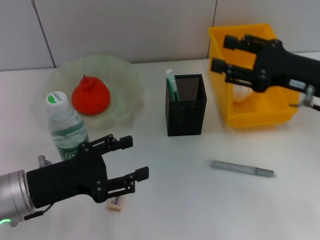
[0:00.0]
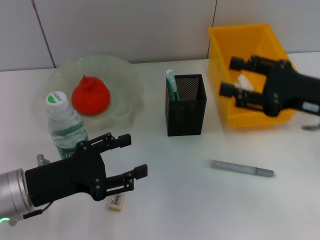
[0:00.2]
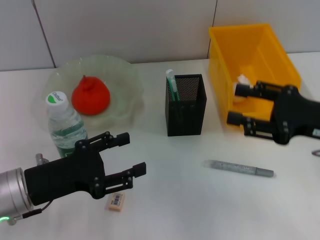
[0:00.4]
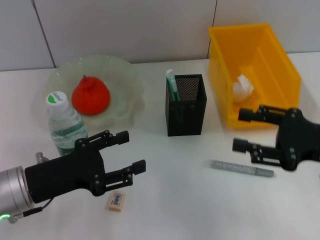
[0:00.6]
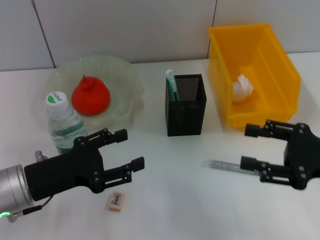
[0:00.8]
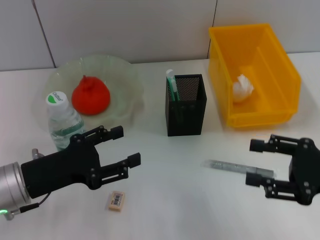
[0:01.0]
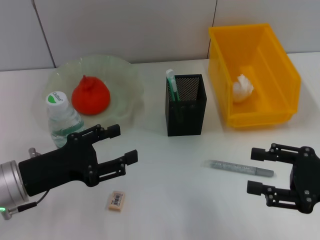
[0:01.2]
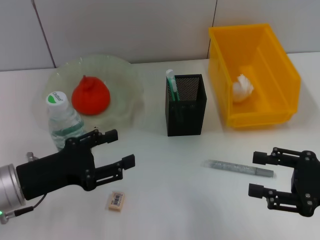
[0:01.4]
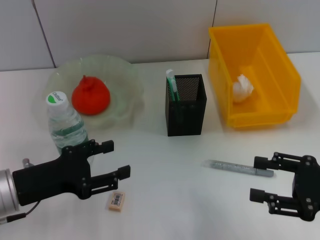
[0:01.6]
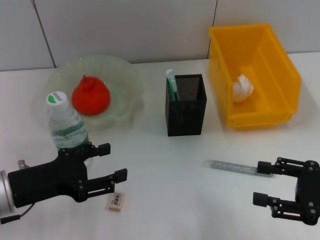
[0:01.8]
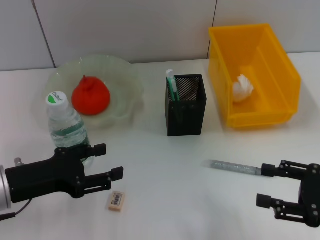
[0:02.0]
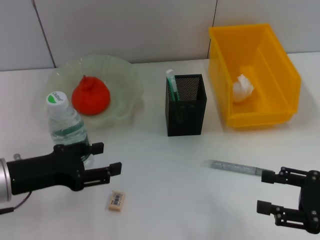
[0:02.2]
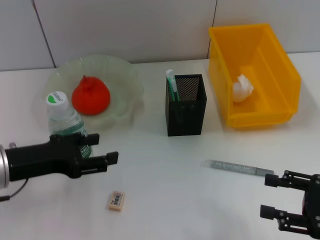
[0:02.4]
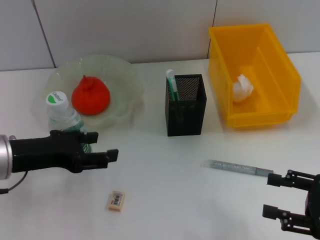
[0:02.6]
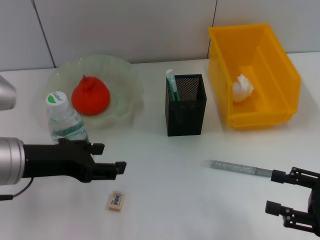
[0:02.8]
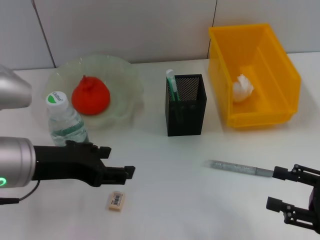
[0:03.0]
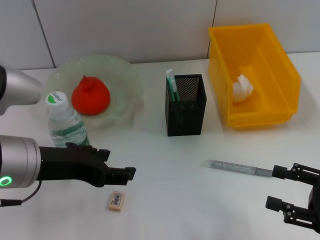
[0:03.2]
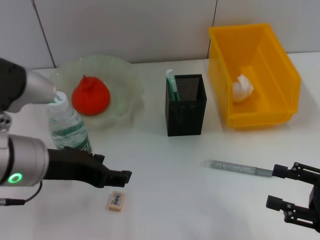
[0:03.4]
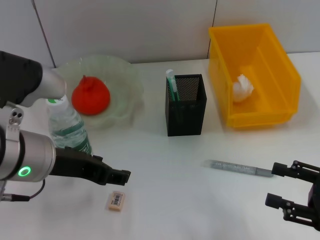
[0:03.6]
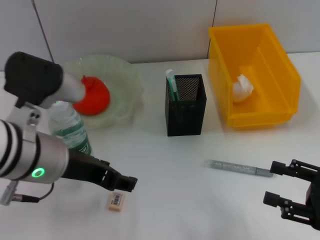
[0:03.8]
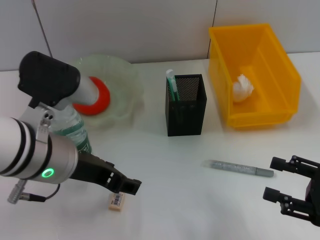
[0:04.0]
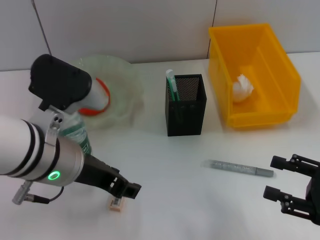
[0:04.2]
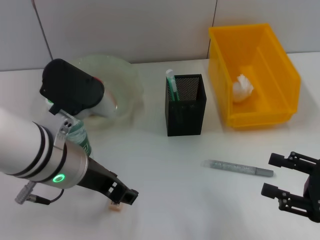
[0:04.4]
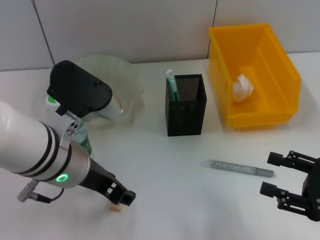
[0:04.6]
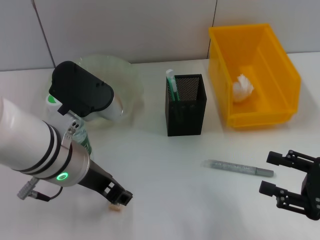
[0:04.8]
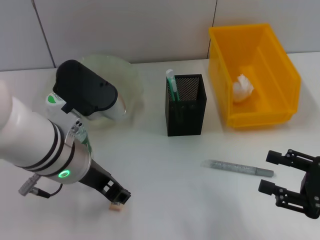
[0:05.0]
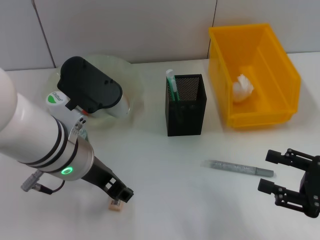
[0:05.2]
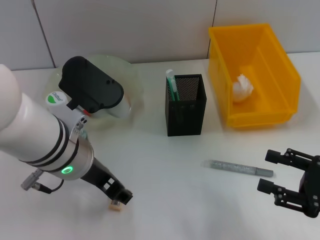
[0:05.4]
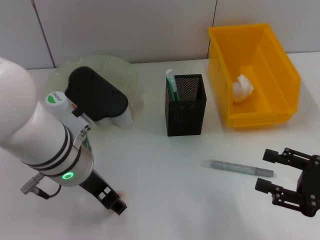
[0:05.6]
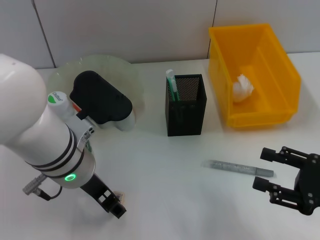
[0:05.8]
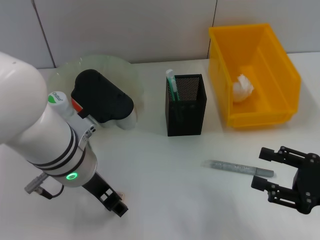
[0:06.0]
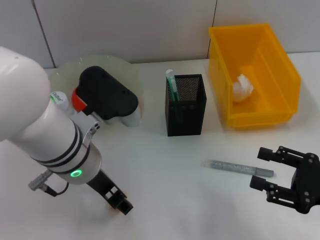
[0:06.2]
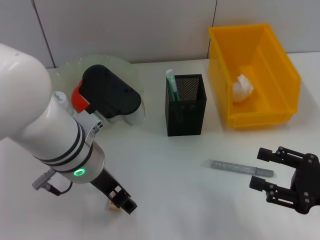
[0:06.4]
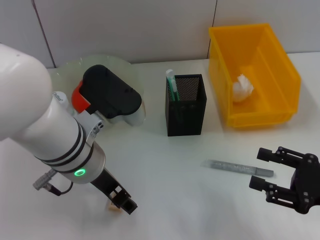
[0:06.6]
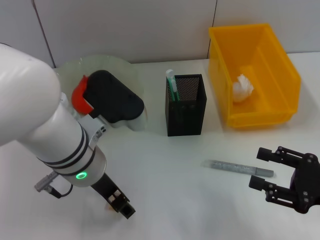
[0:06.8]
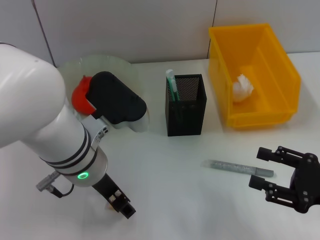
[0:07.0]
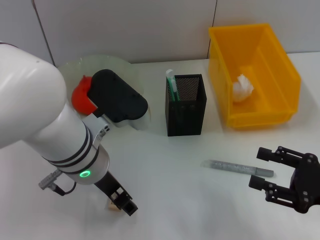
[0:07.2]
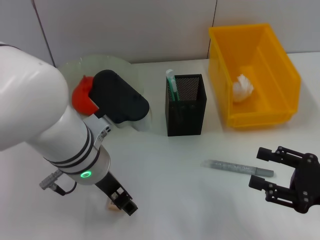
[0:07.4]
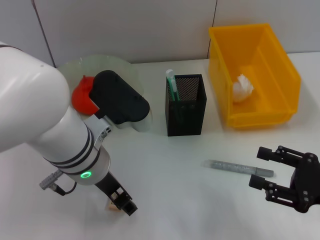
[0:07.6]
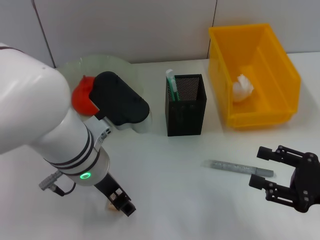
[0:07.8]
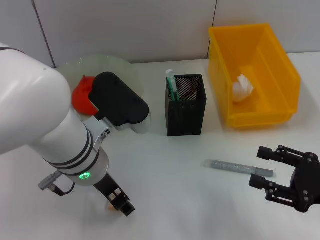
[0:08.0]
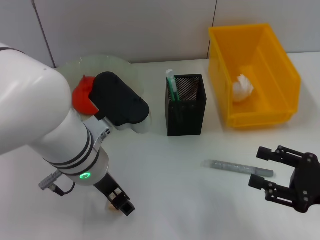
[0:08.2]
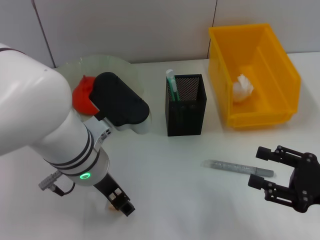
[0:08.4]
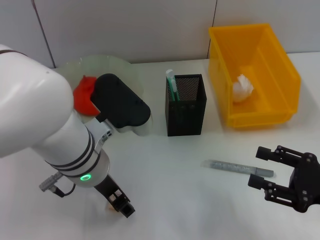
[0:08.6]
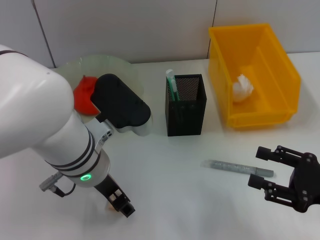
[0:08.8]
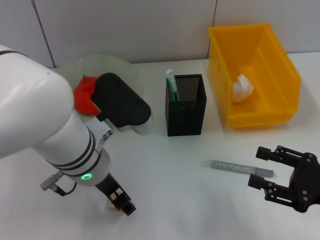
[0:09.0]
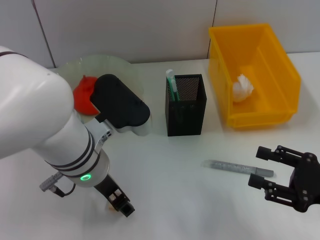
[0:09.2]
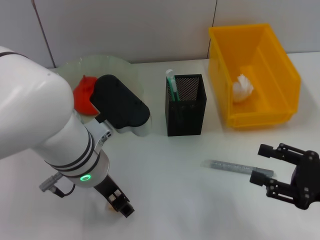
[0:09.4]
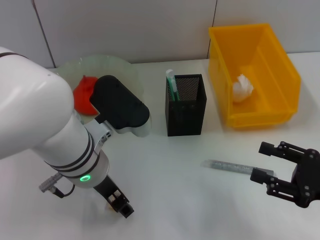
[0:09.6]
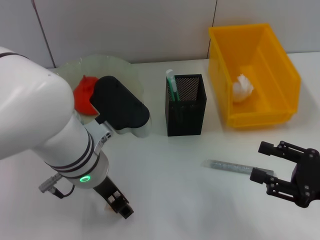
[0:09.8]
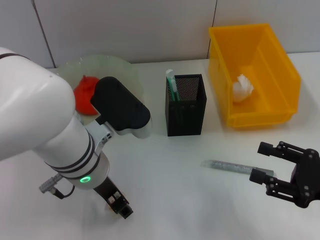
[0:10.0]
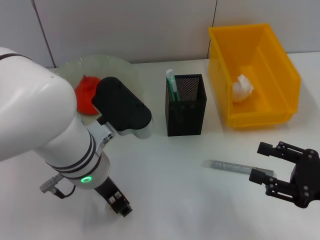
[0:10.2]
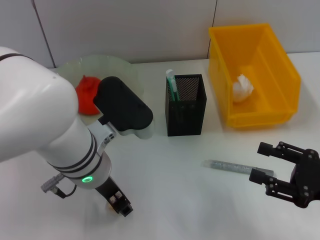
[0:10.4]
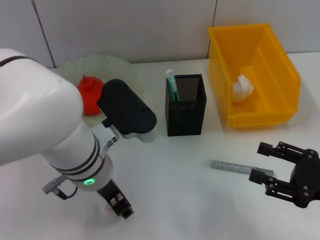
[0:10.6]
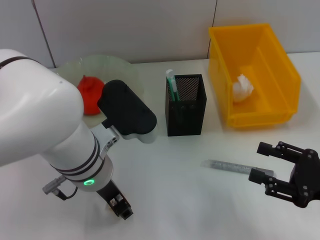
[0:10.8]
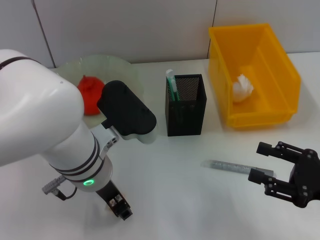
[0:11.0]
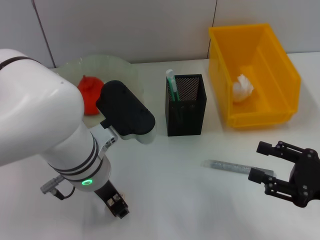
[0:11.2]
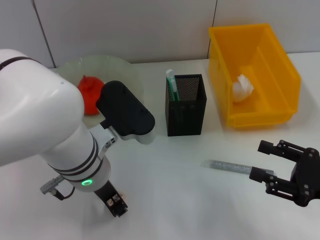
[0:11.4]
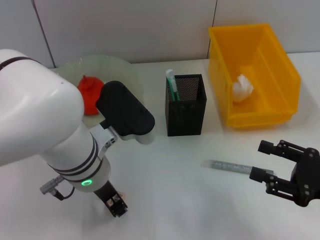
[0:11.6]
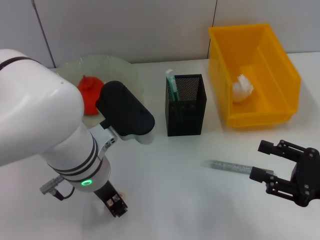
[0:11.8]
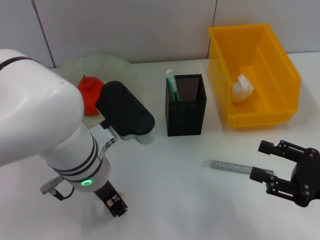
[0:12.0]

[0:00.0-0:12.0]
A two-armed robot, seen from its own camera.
0:00.0 to 0:01.6: The right gripper travels backward and downward by some 15 cm.
0:01.6 to 0:03.0: The left gripper moves upward, roughly 10 cm.
0:03.0 to 0:04.4: The left gripper travels to the right by roughly 5 cm.
0:04.4 to 0:07.6: The grippers make only small movements.
0:07.6 to 0:10.4: Both grippers stay put.
0:10.4 to 0:12.0: Neither gripper changes place.

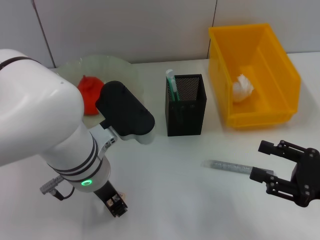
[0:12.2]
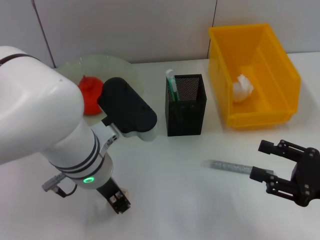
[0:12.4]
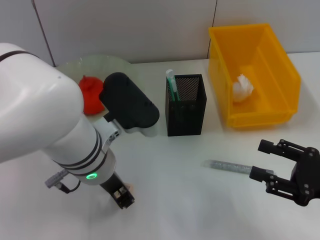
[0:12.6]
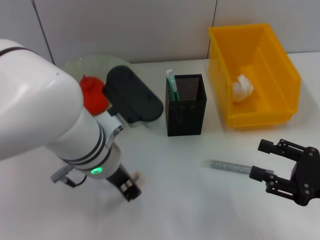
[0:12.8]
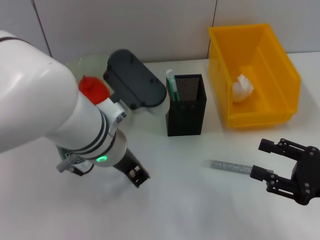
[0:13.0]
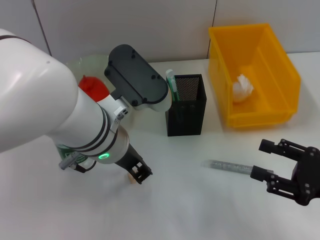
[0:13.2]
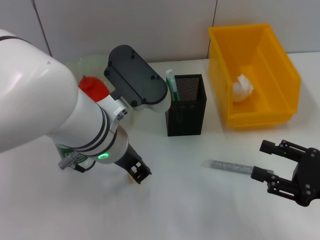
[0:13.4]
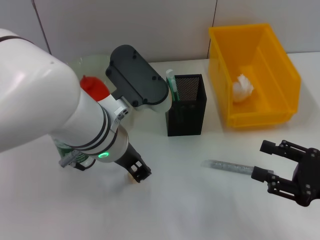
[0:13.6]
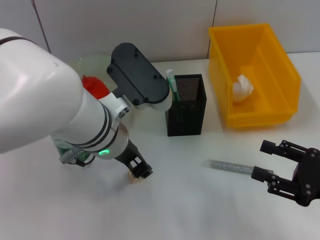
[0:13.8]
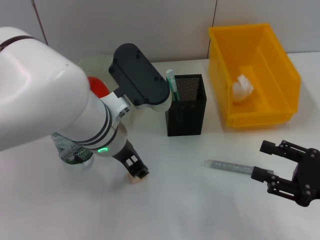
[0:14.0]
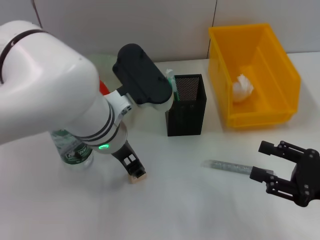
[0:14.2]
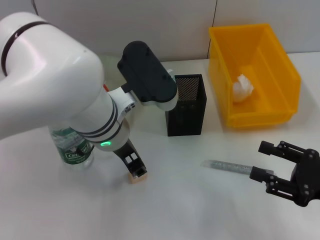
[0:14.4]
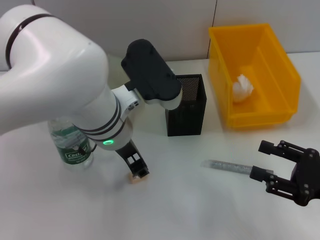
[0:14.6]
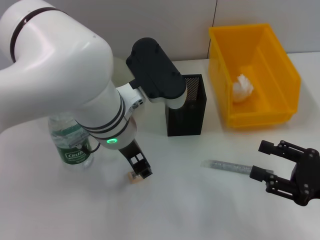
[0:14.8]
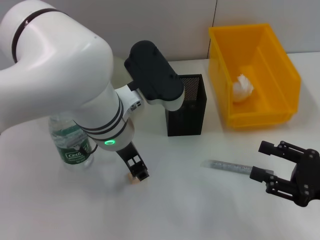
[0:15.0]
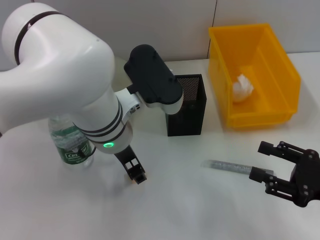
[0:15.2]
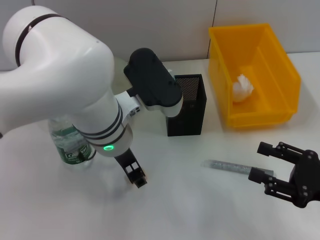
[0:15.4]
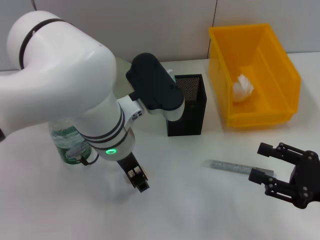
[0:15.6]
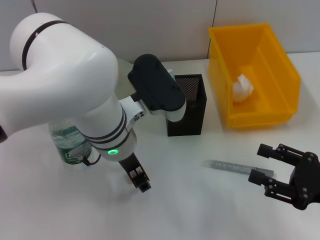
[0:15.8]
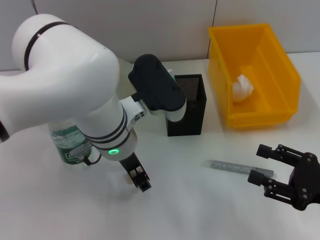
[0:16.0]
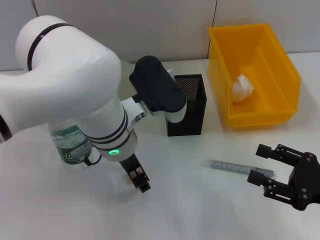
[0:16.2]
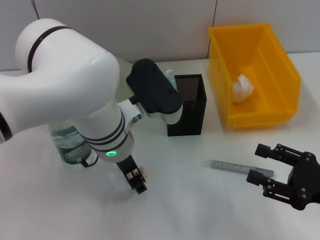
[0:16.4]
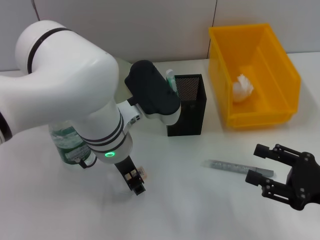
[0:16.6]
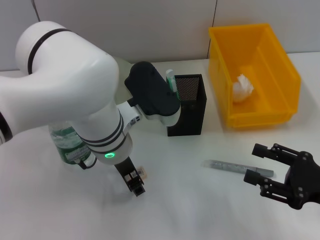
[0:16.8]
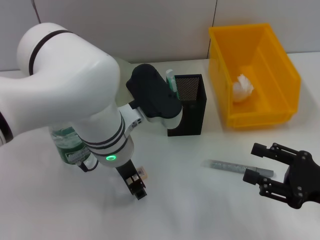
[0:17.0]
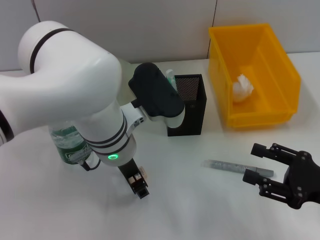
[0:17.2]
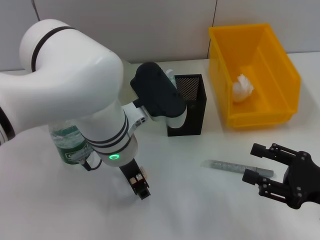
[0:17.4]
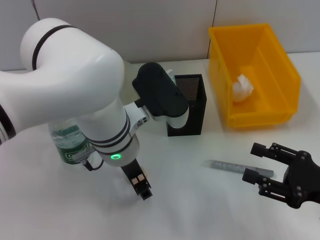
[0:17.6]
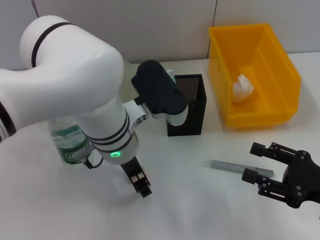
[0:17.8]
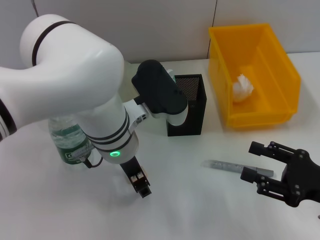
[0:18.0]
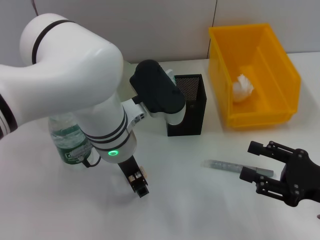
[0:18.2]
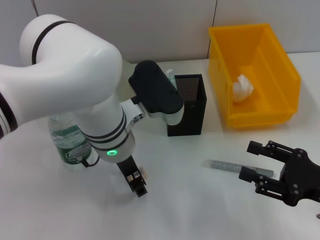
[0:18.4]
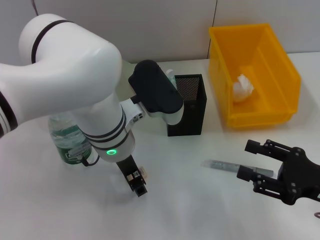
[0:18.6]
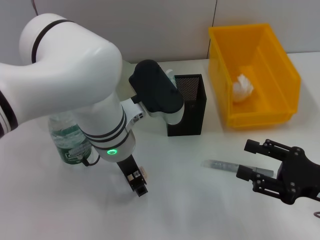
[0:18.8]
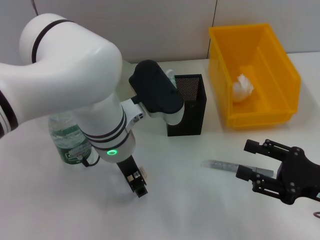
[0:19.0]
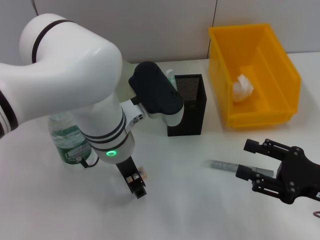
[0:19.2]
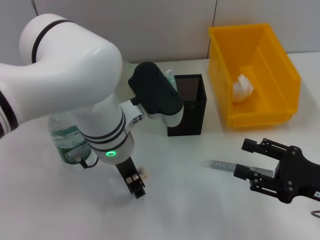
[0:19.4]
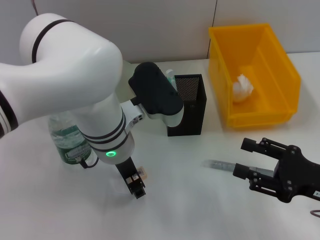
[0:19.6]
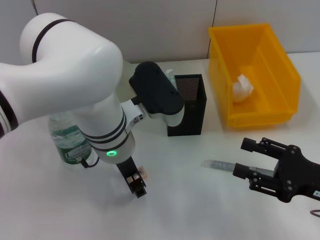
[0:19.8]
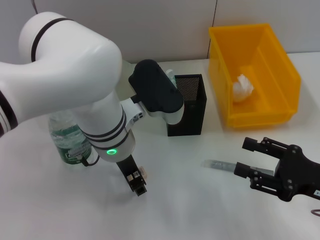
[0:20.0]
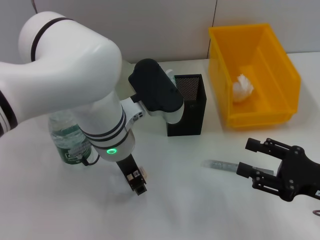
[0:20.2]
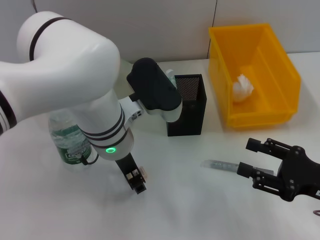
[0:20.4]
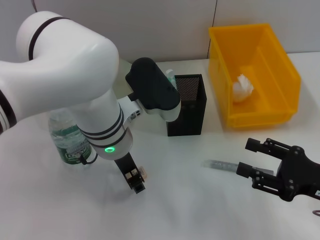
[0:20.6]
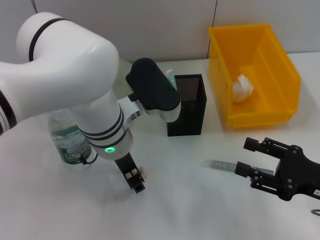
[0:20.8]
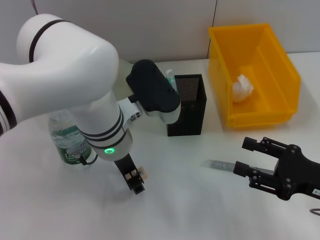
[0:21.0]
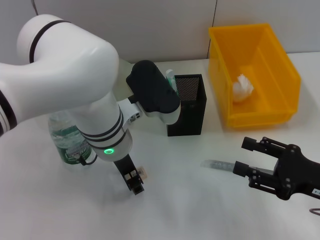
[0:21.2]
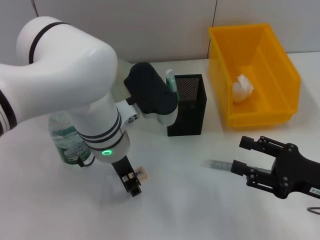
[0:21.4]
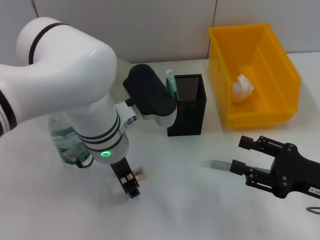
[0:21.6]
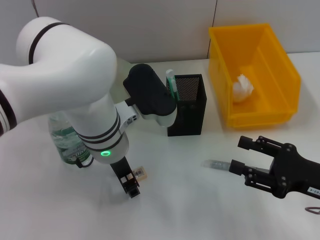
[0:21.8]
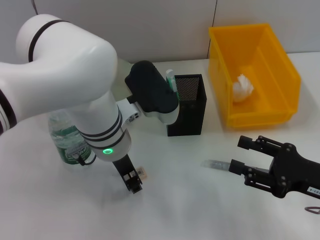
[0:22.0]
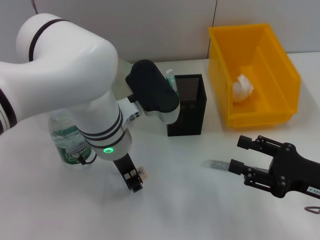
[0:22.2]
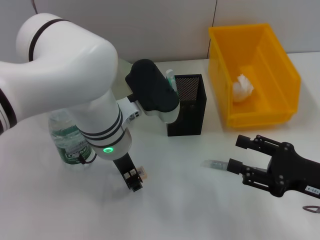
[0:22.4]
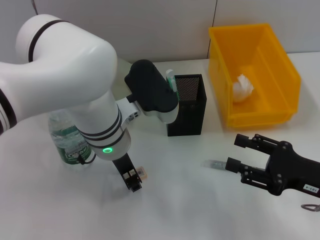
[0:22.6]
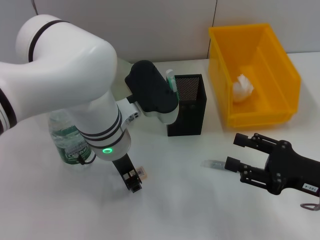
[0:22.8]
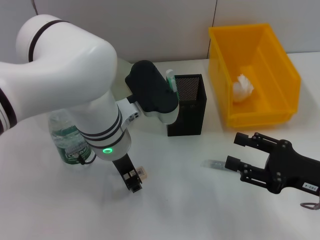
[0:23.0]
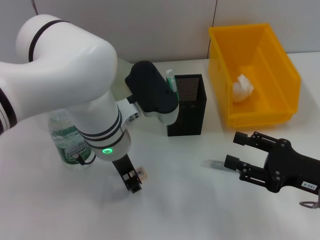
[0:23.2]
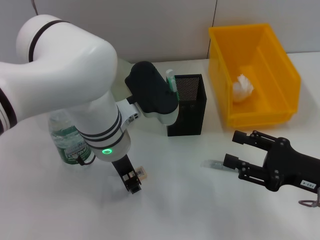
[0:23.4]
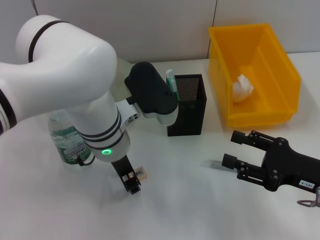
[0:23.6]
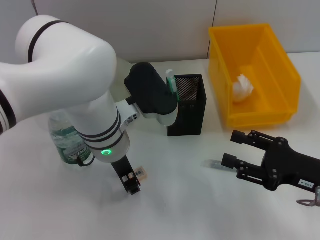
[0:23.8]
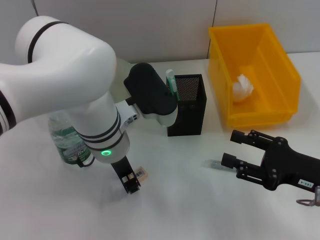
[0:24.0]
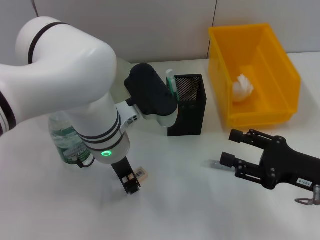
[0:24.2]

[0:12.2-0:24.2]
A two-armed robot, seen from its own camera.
0:13.8 to 0:15.2: The left gripper opens.
0:15.2 to 0:16.6: The grippers stay close to where they were, moving slightly.
0:16.6 to 0:18.2: Neither gripper changes place.
0:18.2 to 0:21.2: Neither gripper changes place.
0:21.2 to 0:22.6: Neither gripper changes place.
0:22.6 to 0:24.2: Neither gripper changes place.
